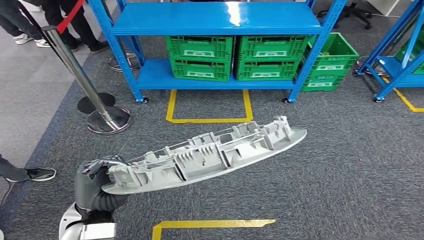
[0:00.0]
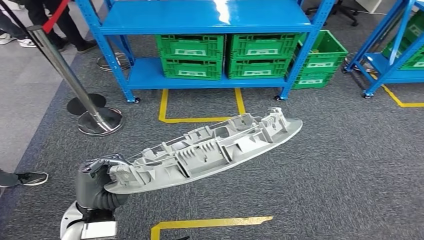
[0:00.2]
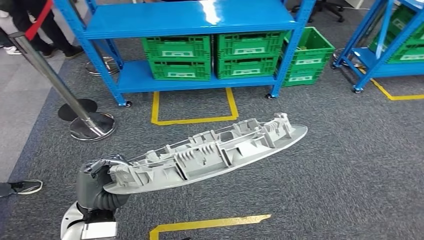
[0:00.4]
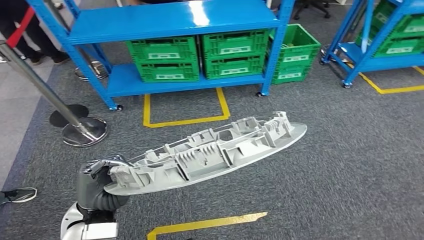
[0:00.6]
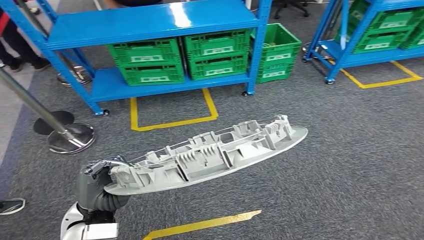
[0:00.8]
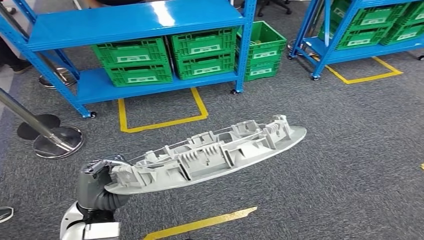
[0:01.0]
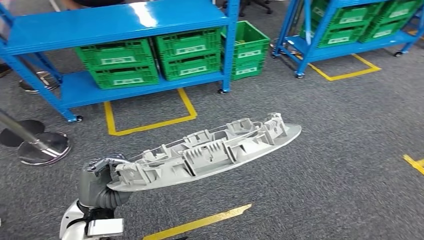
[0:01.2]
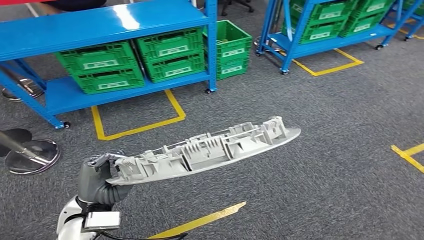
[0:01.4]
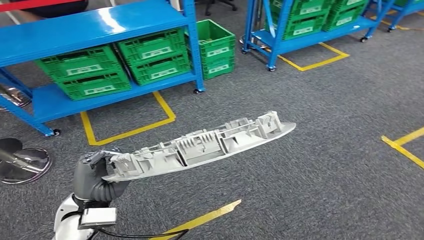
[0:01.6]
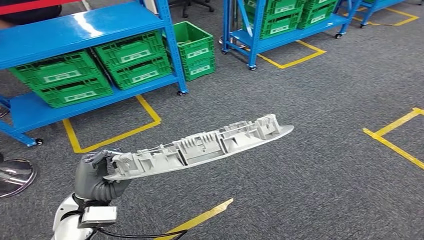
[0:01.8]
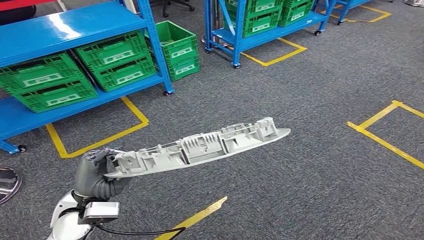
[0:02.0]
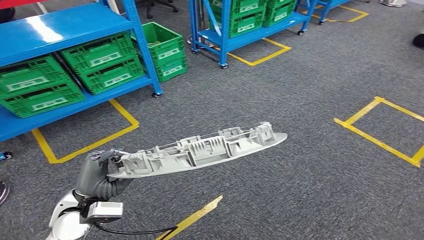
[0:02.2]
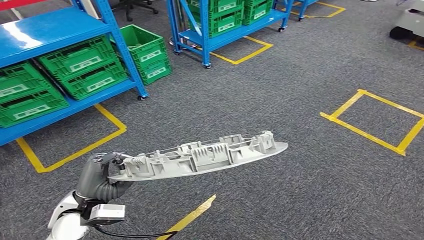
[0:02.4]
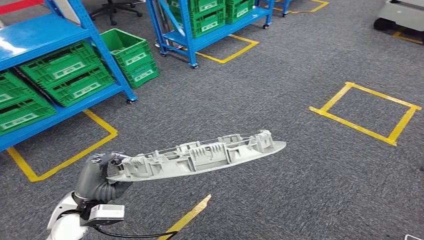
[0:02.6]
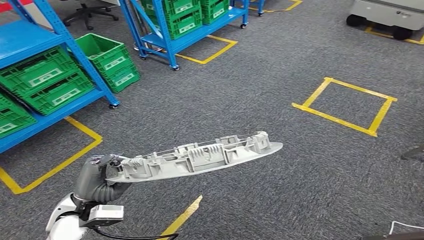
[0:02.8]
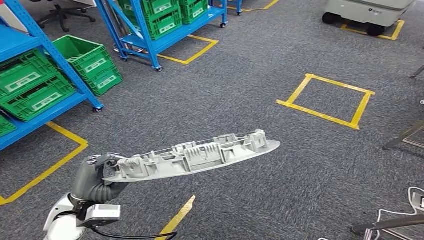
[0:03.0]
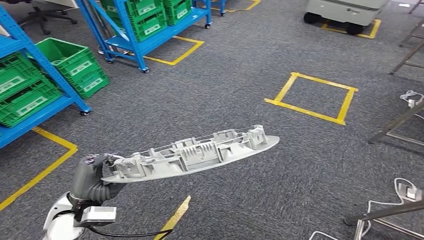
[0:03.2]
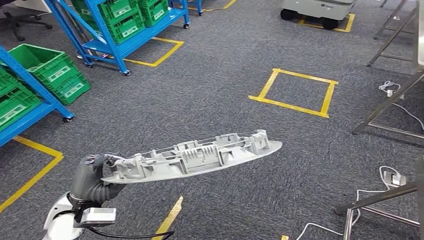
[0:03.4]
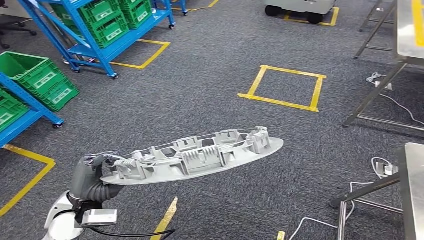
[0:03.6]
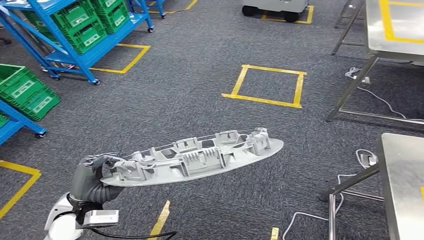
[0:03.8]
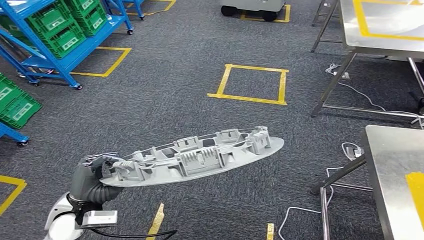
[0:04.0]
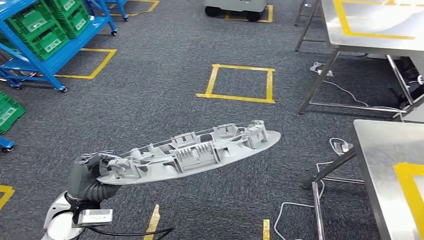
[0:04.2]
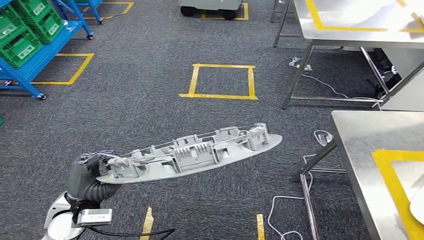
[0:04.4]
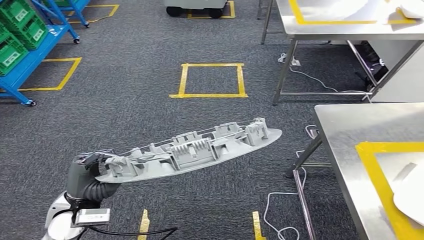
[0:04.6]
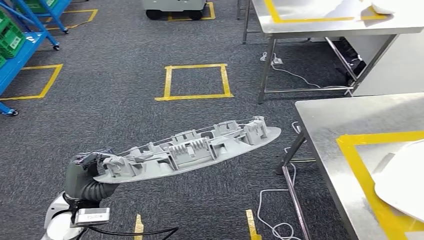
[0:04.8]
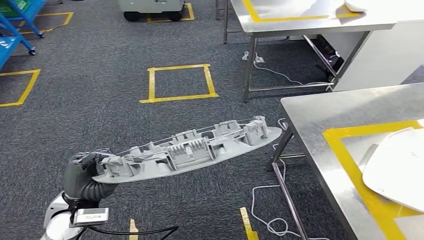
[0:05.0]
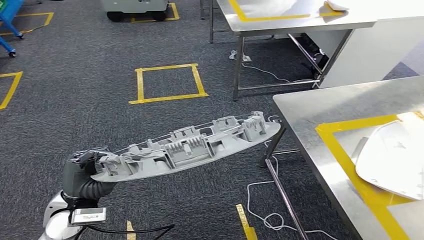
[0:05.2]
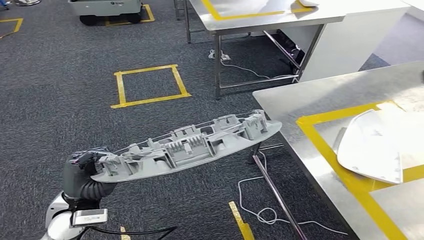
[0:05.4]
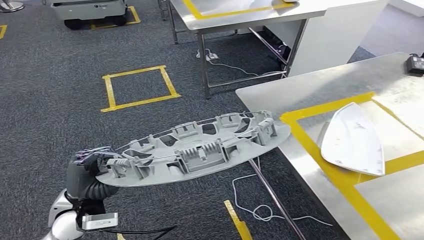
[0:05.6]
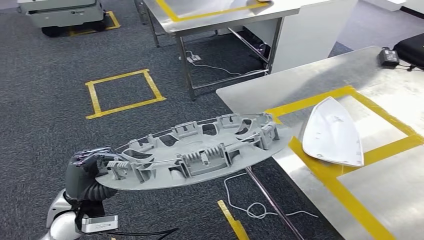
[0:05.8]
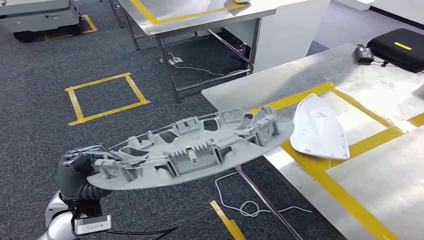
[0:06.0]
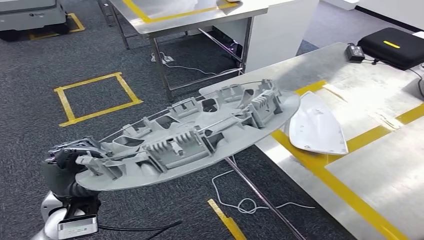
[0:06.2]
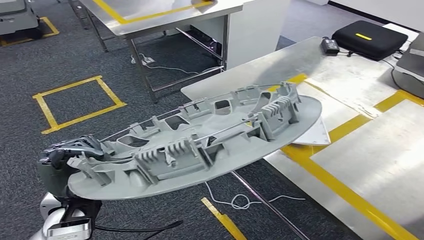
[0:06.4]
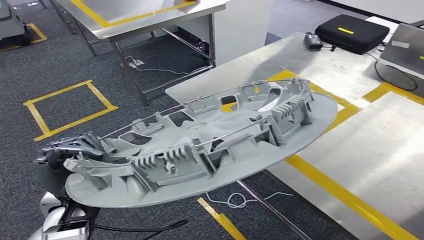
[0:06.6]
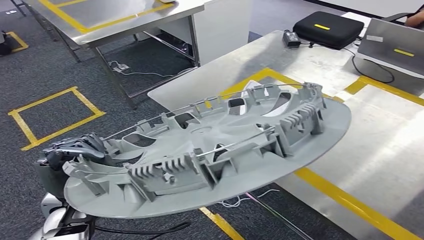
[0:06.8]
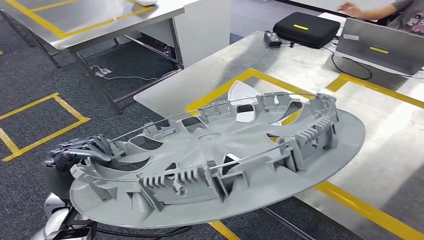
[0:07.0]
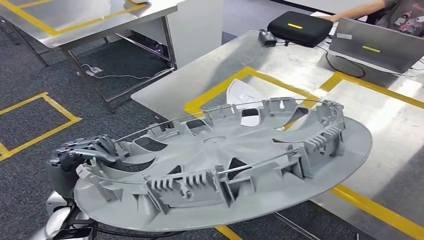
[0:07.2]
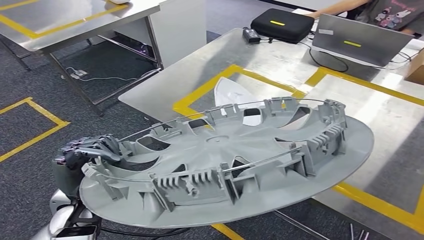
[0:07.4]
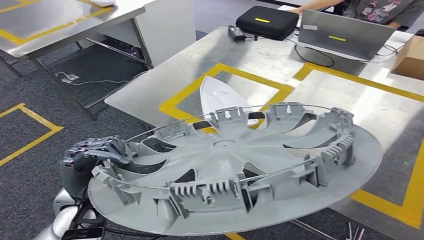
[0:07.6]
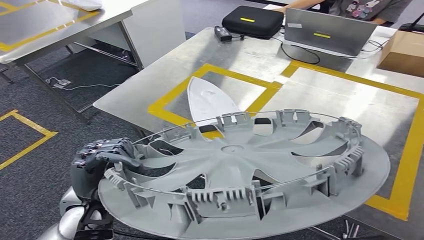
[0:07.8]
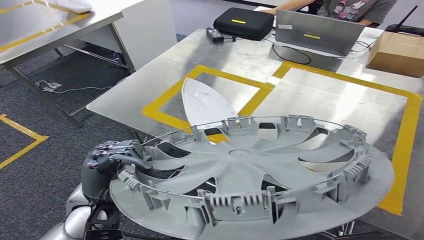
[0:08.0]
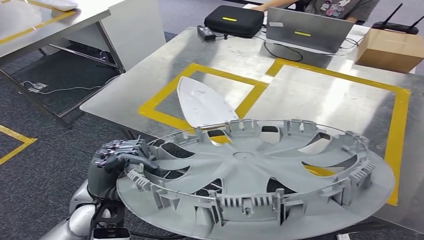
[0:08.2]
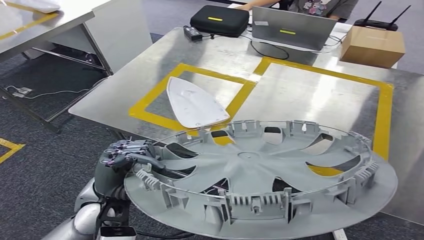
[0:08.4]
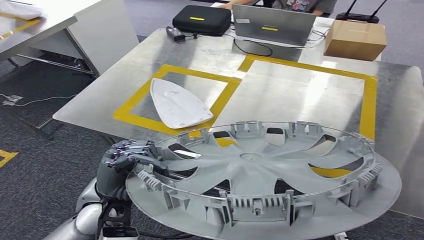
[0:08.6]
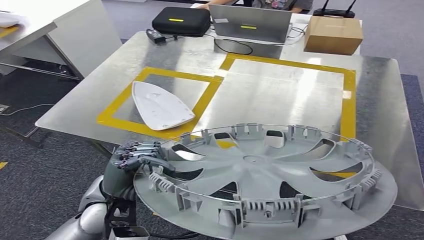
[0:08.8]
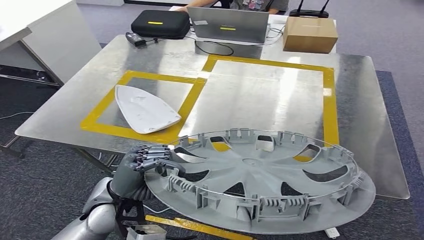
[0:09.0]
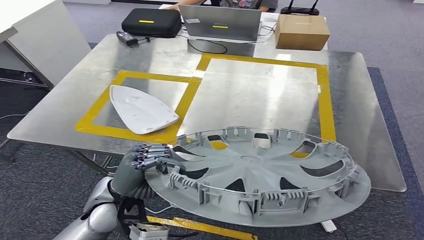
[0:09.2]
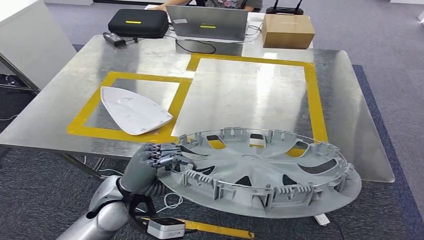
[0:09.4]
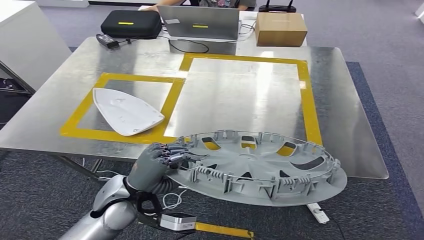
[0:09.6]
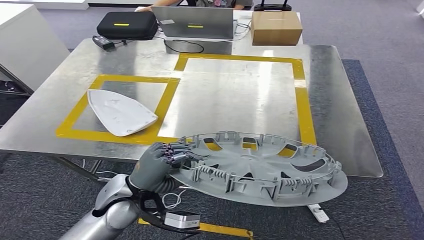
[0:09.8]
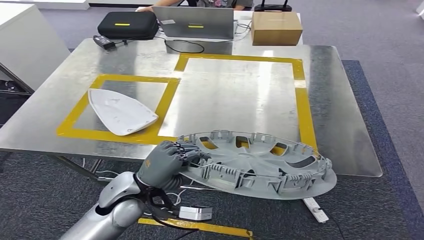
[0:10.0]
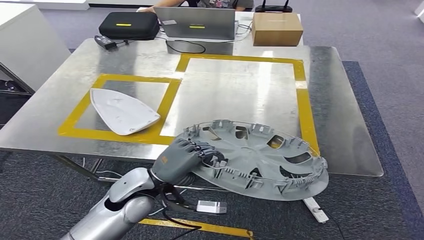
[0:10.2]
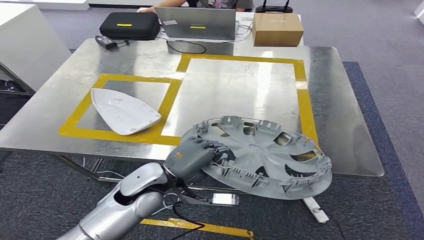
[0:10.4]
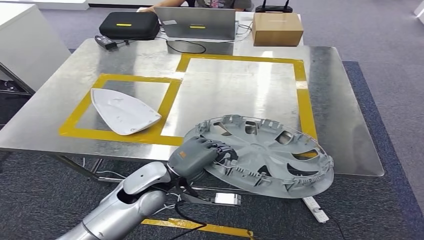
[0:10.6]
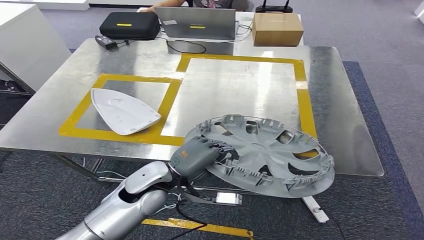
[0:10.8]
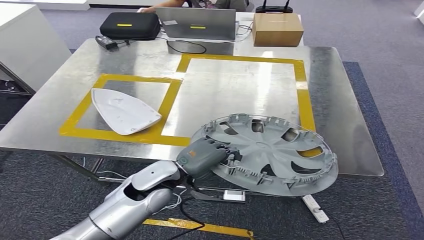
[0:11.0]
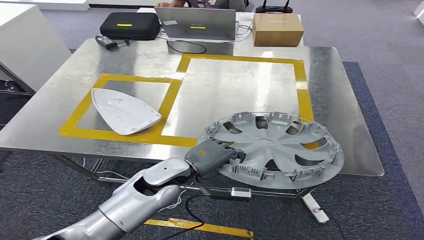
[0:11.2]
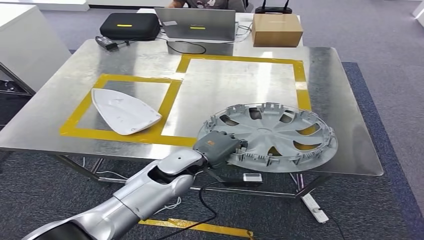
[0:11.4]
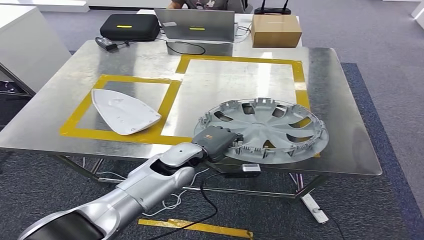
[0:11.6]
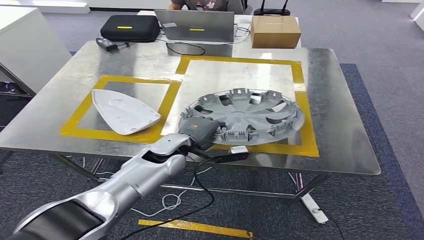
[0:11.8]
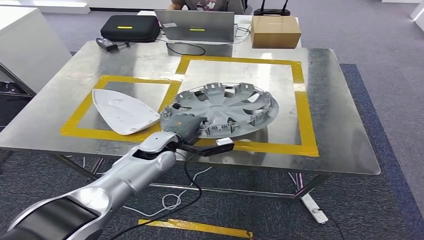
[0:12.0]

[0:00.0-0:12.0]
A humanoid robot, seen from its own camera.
Step, 0.0 to 9.4 s: Bring the small component to the front of the workbench.

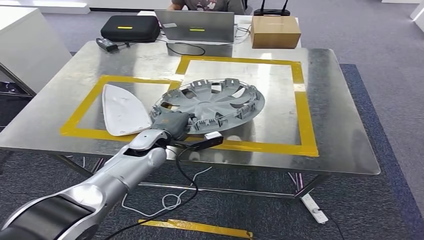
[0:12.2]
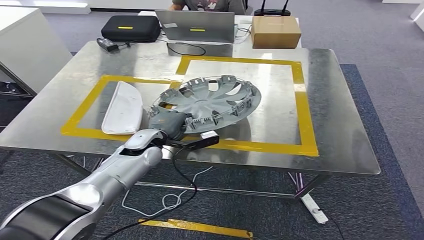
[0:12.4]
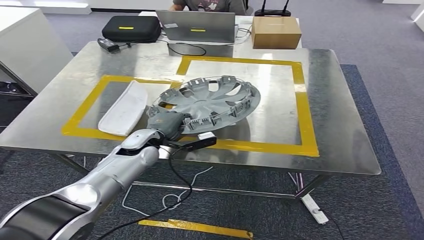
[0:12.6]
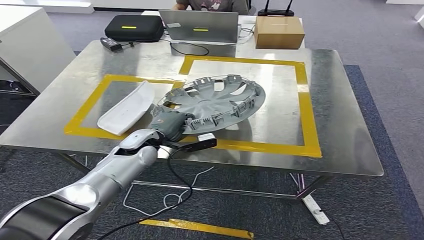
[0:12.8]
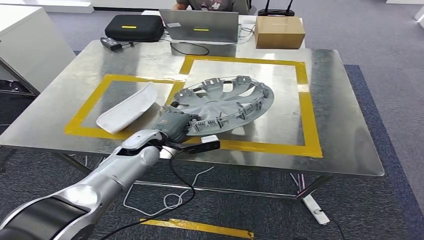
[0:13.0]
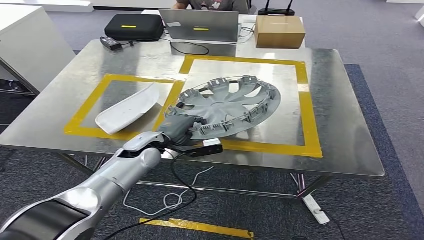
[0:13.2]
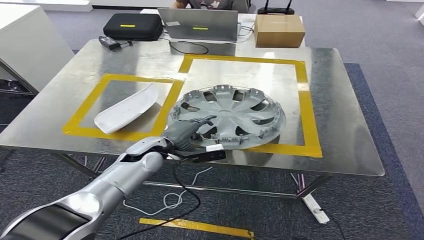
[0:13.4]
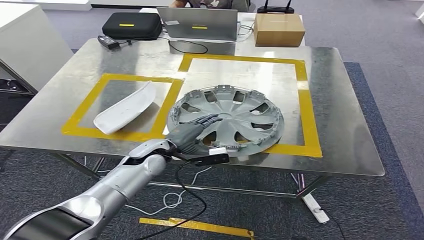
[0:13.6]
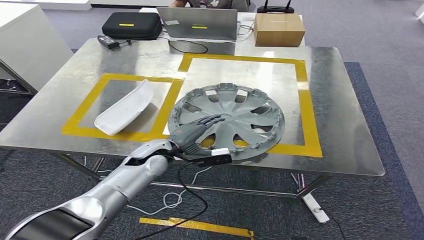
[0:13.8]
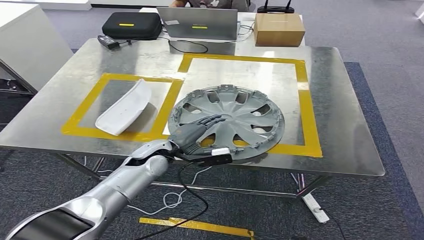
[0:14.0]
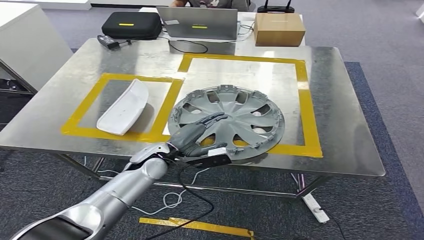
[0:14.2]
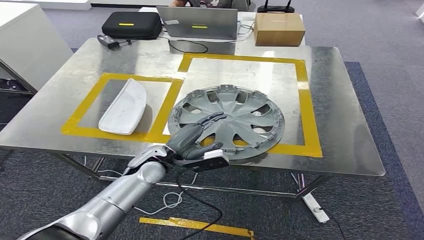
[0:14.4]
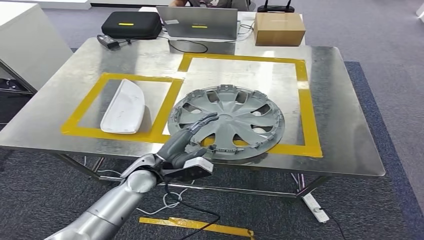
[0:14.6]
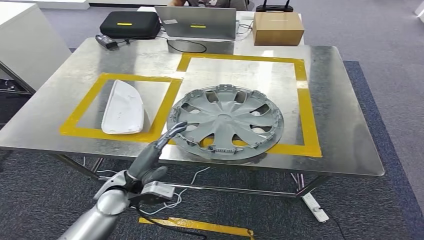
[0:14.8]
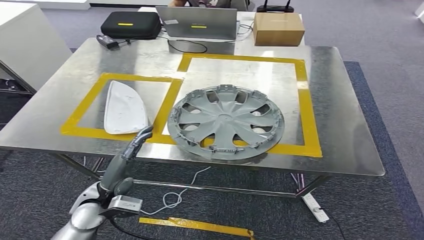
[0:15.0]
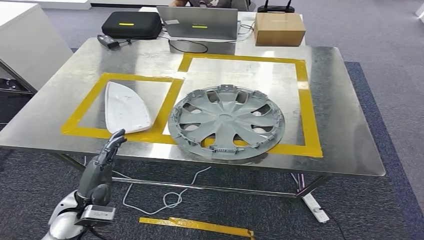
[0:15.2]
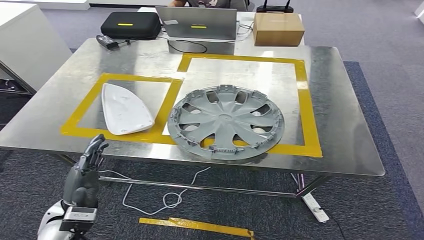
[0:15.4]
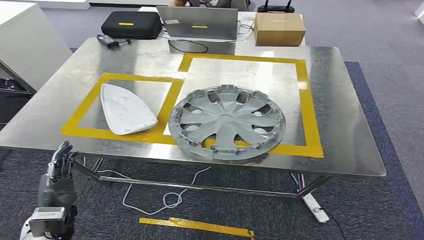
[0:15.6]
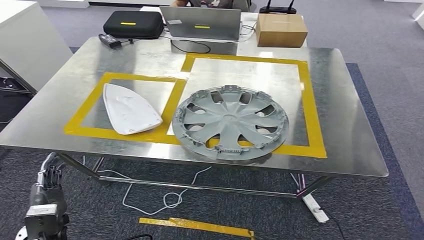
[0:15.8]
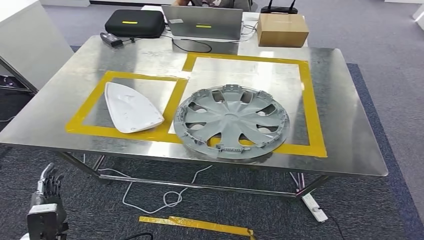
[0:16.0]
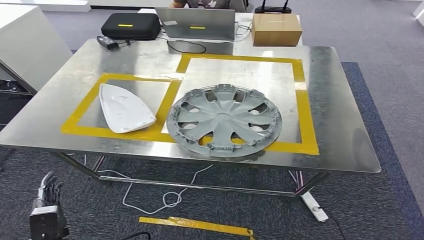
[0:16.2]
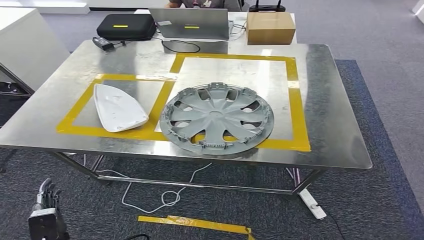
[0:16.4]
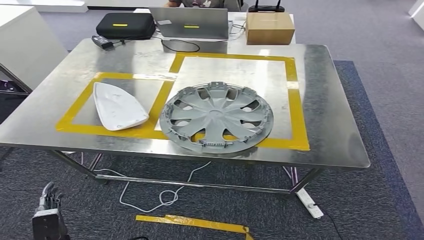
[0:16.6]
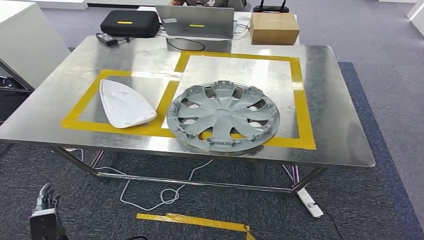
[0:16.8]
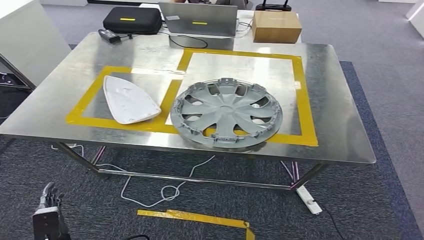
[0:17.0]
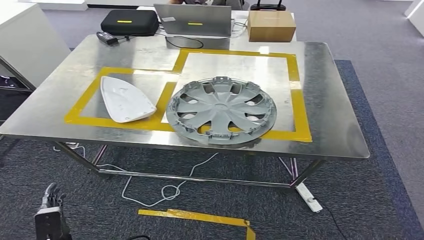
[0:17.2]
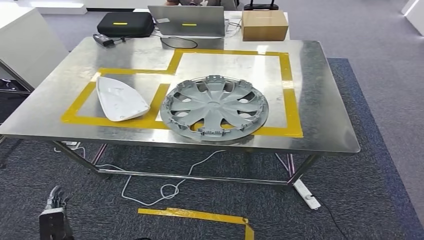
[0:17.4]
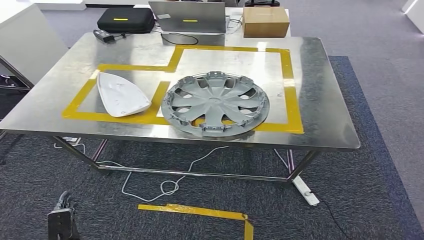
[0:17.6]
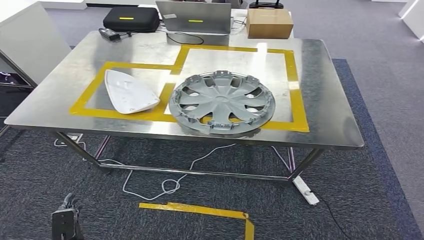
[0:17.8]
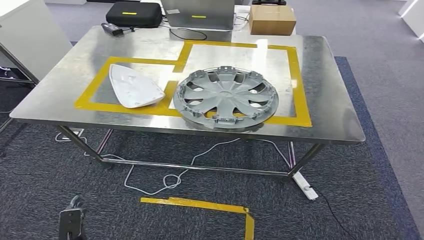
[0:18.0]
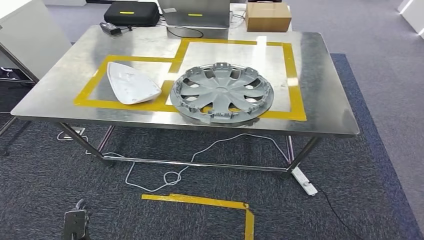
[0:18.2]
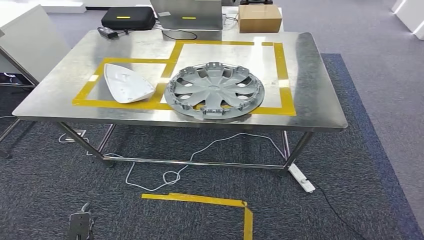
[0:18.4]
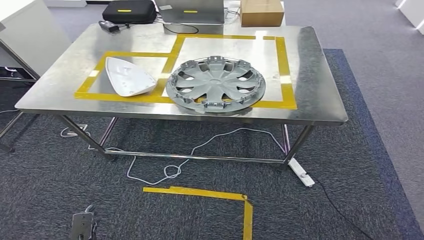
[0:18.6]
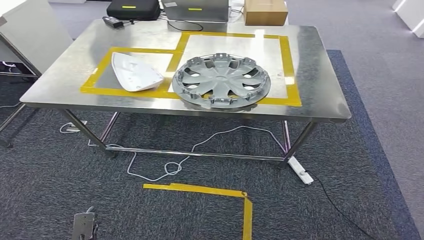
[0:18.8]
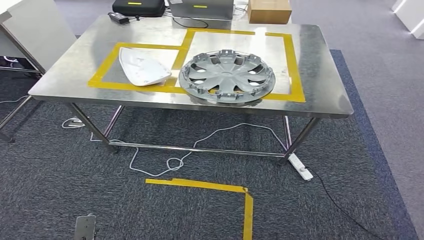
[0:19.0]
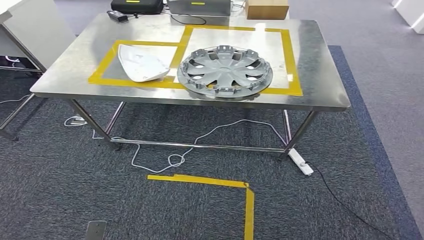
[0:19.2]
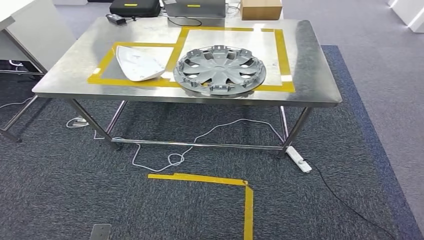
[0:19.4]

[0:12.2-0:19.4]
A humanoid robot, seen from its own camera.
Step, 12.2 to 16.6 s: Insert the small component into the corresponding slot on the workbench.
13.6 to 15.0 s: The left hand travels backward and to the left by some 15 cm.
